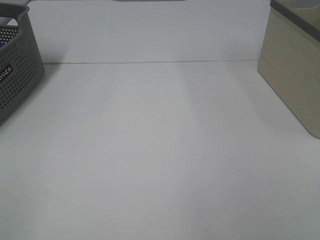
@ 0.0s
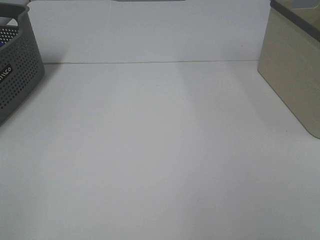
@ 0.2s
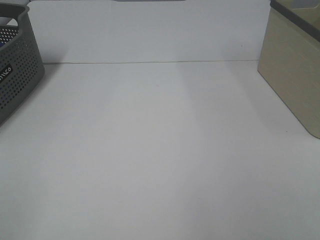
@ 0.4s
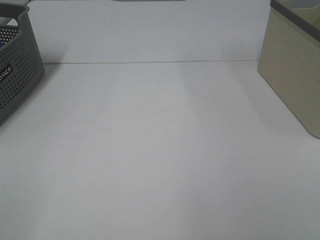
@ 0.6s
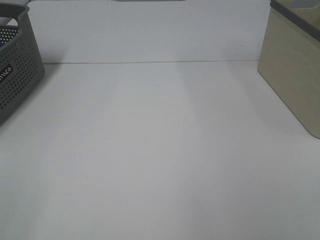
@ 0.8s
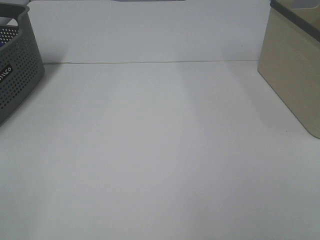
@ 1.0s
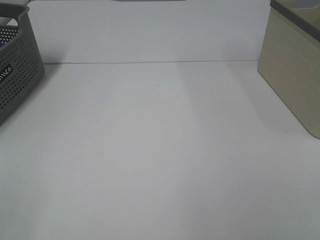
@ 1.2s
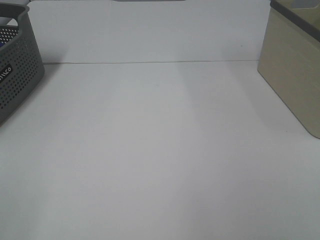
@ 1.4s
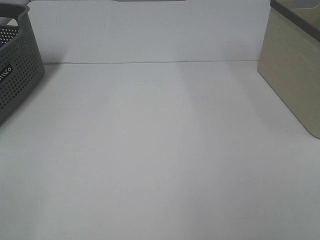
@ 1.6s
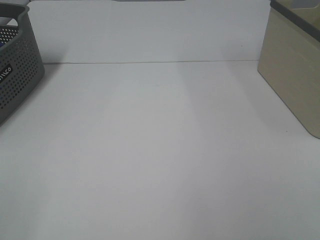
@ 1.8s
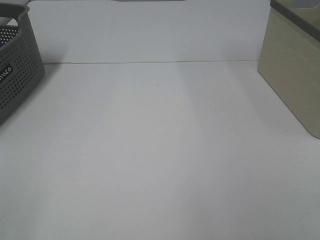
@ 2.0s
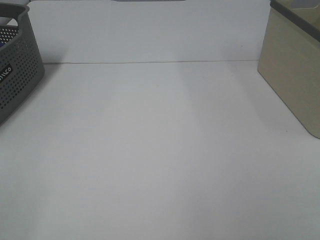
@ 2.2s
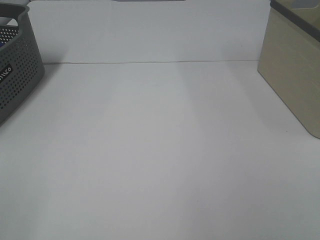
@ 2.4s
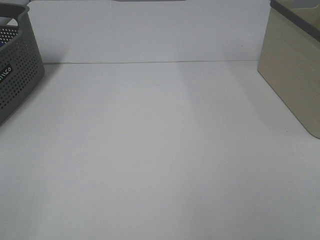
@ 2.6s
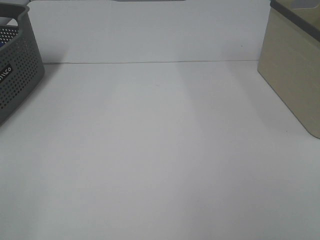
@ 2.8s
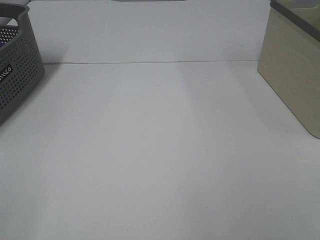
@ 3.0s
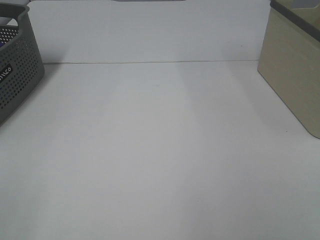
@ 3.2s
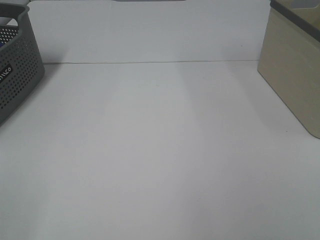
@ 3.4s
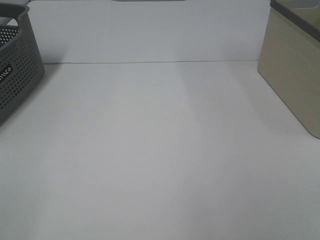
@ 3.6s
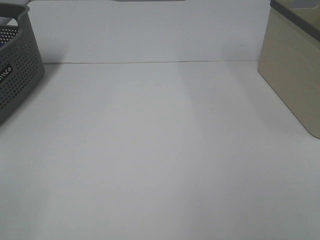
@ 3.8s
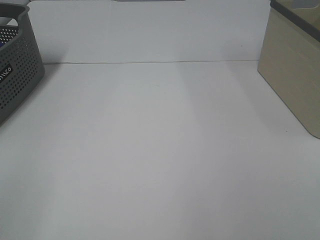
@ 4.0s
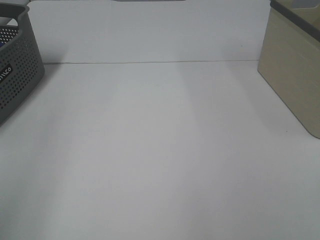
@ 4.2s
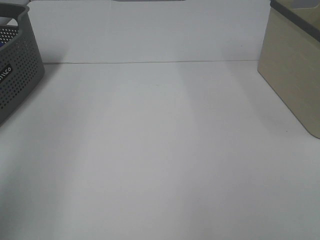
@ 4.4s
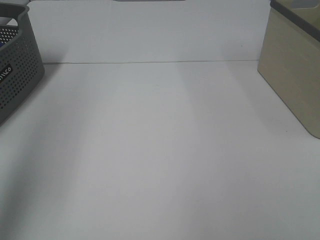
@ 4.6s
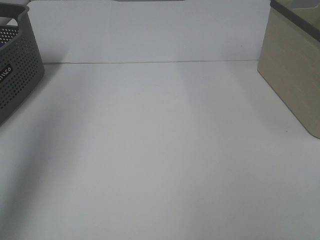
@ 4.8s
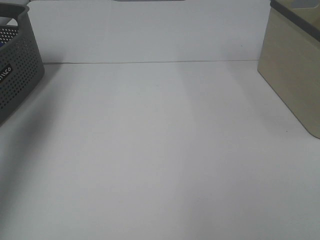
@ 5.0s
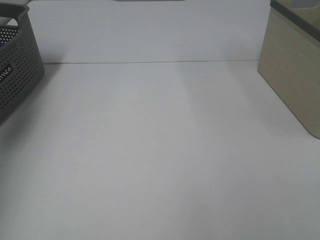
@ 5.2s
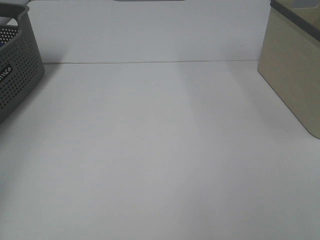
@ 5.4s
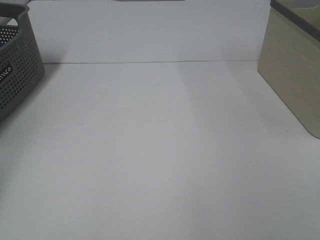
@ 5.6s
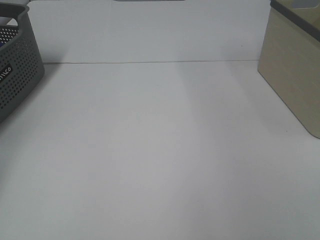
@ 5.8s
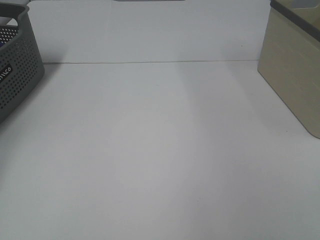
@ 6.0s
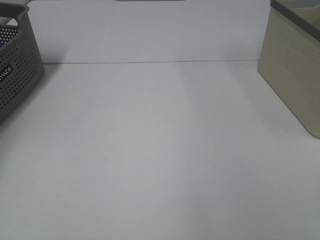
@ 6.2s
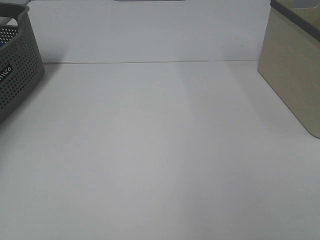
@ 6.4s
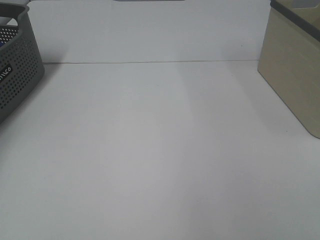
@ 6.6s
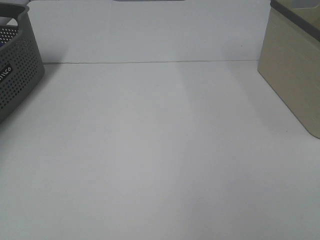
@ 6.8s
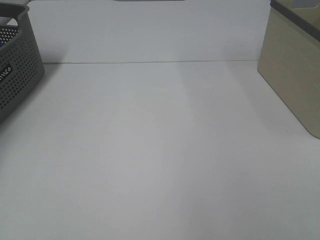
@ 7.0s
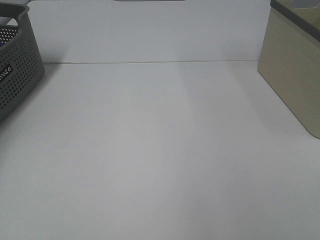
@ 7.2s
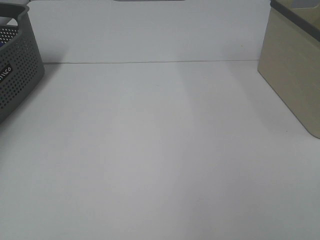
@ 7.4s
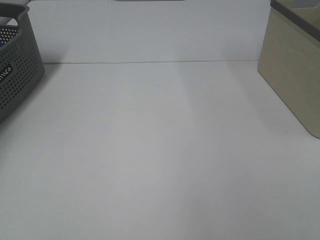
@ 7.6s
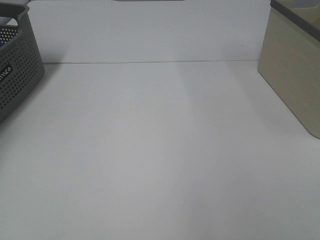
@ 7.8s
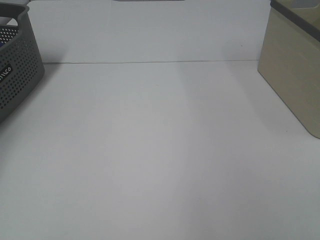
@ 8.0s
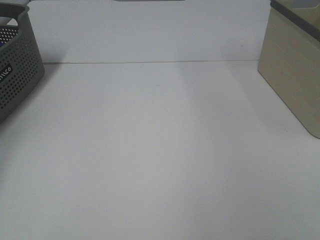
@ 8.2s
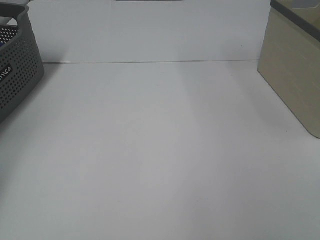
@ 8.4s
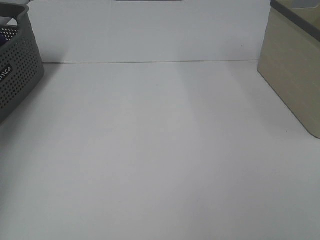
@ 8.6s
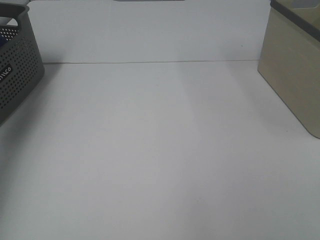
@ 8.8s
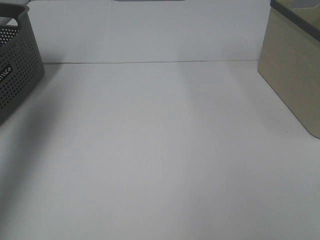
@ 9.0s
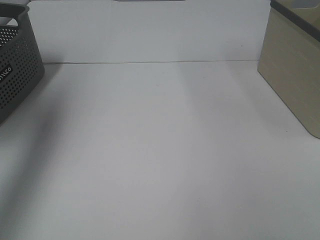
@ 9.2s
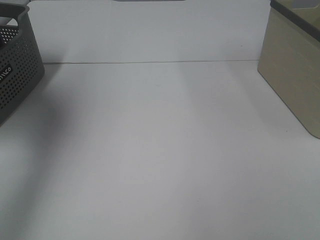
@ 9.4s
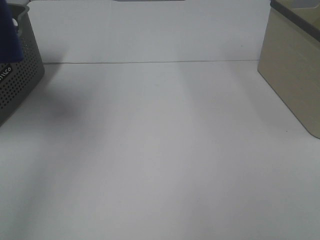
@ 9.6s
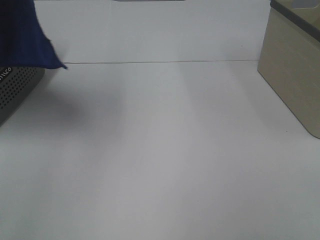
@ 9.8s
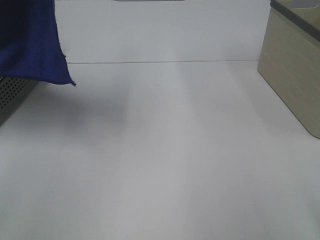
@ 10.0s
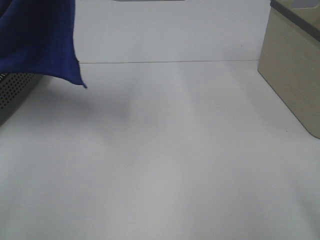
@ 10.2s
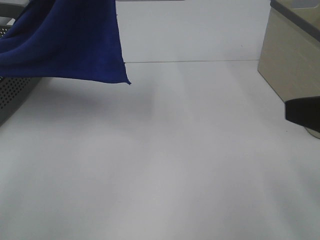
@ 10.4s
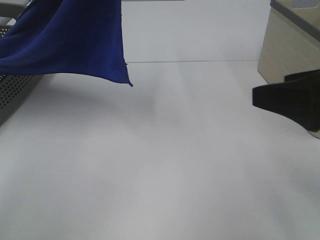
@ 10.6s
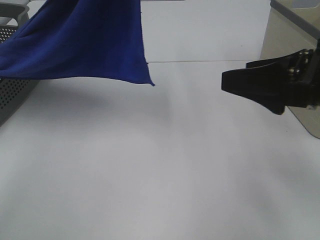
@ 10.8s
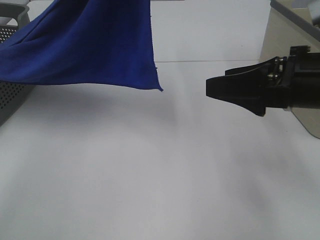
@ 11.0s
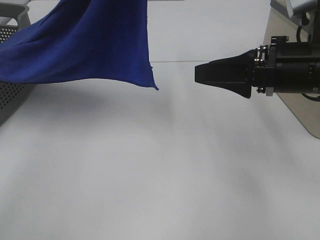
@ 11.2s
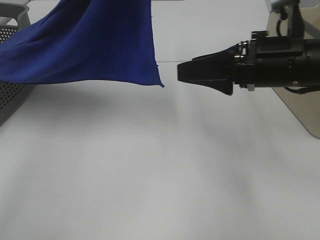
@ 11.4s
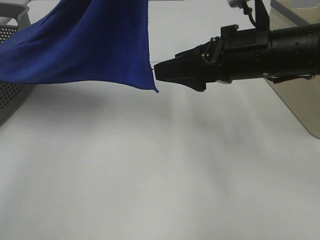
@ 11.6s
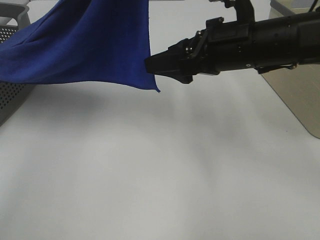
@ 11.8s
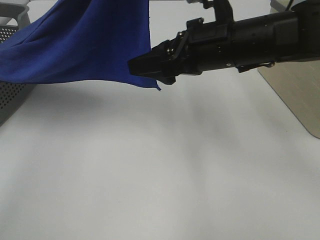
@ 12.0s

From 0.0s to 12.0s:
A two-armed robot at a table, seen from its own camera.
Task of the whole recording: Remove the towel and place it.
From 1.6s to 3.0s: Neither gripper changes place.
From 3.0s to 4.4s: The left gripper travels forward and upward by about 20 cm.
From 4.4s to 6.0s: The left gripper travels forward, to the left and downward by some 40 cm.
From 7.6s to 9.0s: The left gripper moves upward, to the right and backward, some 40 cm.
From 9.0s to 10.4s: The right gripper is displaced forward by about 15 cm. Meanwhile the left gripper heads to the right, covering some 25 cm.
From 10.4s to 12.0s: The right gripper heads forward and to the left, covering roughly 25 cm.

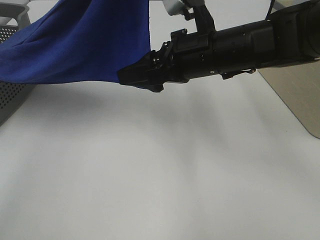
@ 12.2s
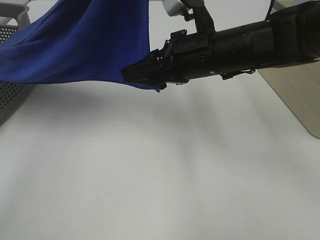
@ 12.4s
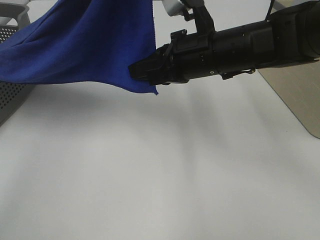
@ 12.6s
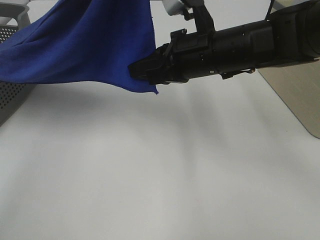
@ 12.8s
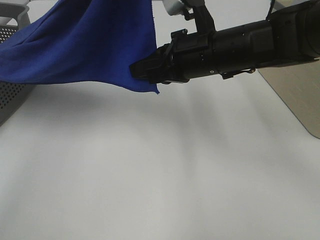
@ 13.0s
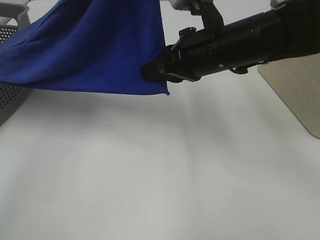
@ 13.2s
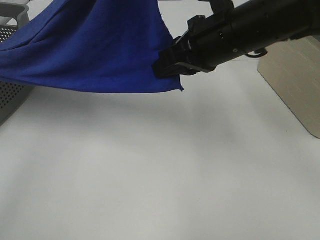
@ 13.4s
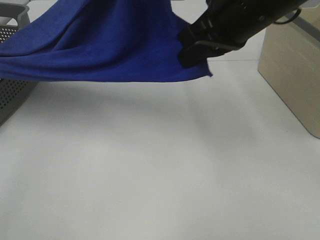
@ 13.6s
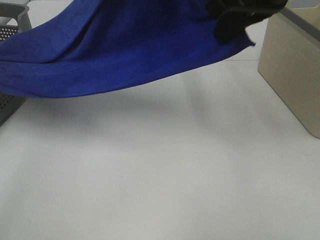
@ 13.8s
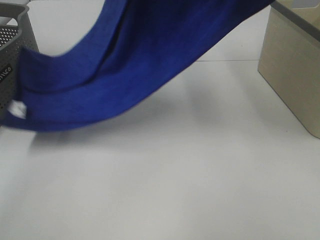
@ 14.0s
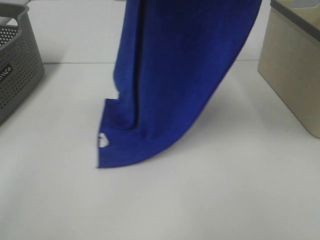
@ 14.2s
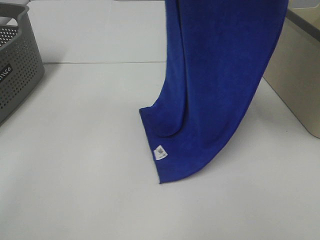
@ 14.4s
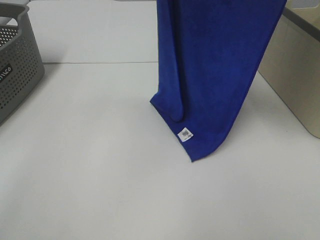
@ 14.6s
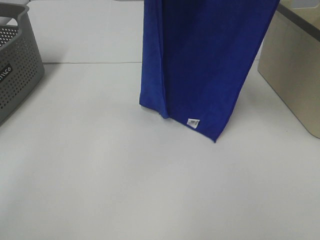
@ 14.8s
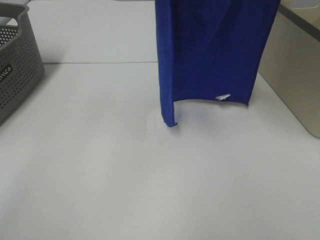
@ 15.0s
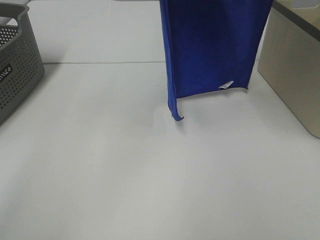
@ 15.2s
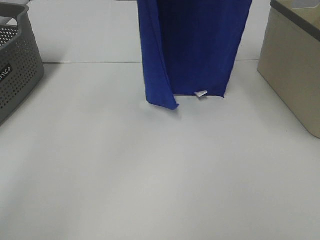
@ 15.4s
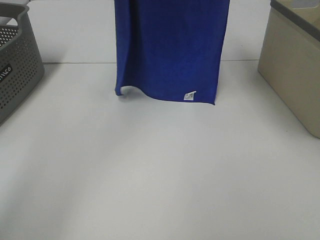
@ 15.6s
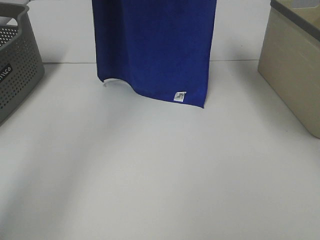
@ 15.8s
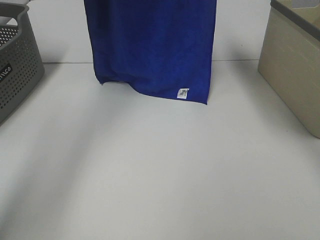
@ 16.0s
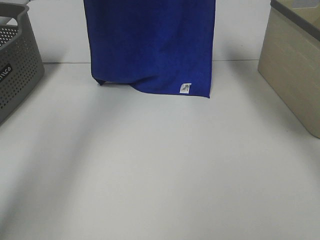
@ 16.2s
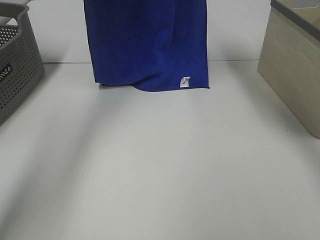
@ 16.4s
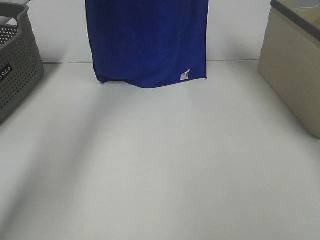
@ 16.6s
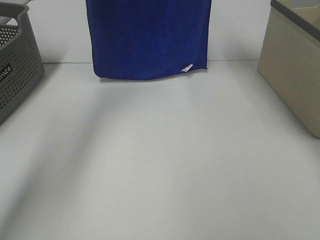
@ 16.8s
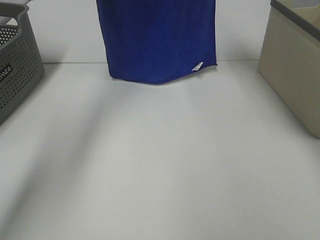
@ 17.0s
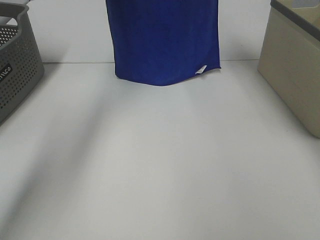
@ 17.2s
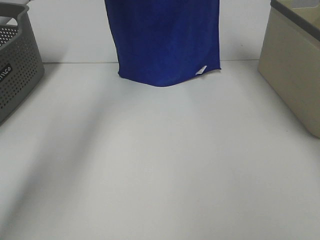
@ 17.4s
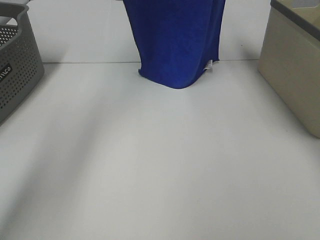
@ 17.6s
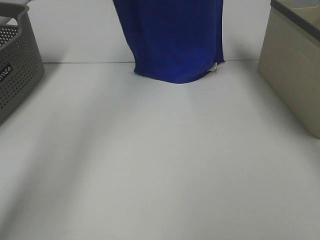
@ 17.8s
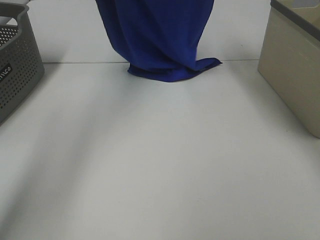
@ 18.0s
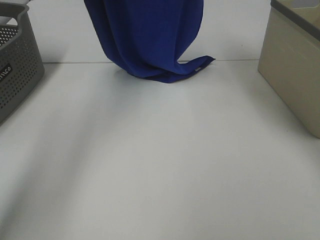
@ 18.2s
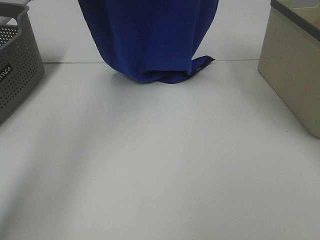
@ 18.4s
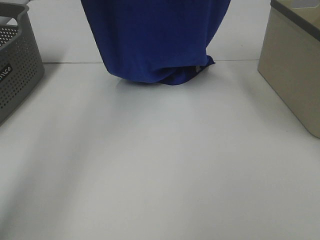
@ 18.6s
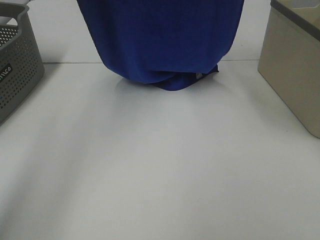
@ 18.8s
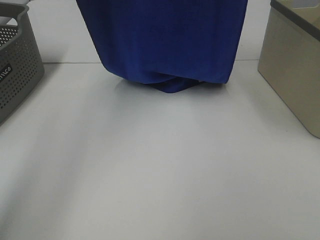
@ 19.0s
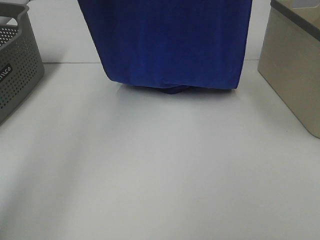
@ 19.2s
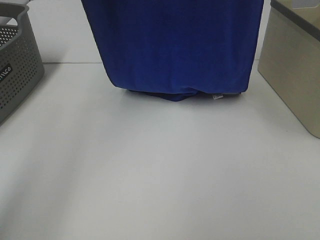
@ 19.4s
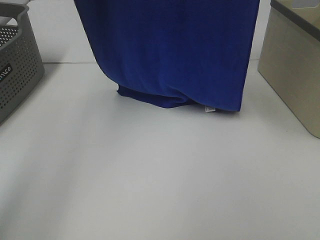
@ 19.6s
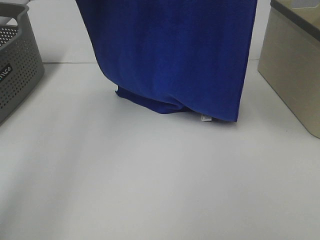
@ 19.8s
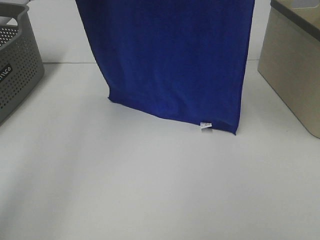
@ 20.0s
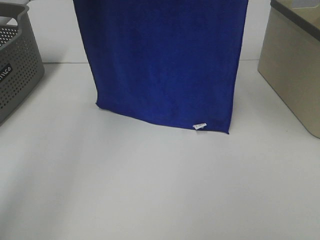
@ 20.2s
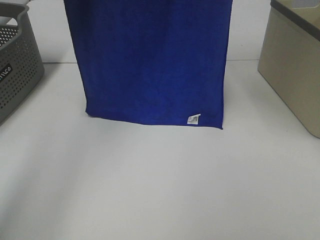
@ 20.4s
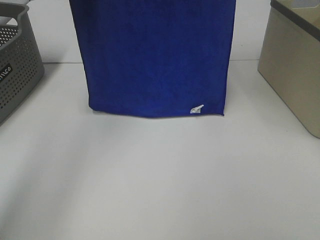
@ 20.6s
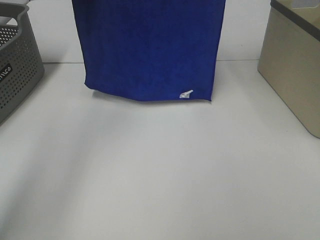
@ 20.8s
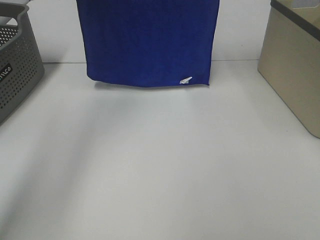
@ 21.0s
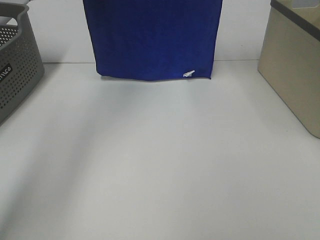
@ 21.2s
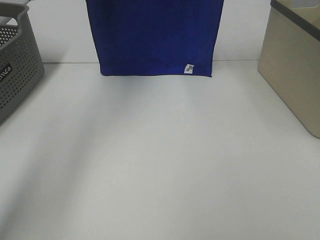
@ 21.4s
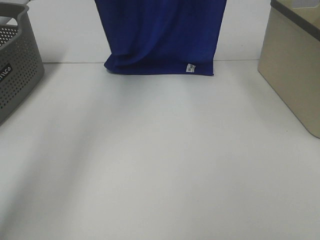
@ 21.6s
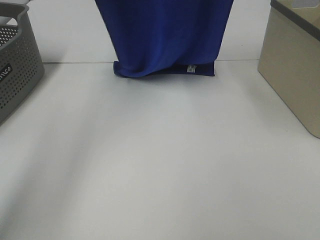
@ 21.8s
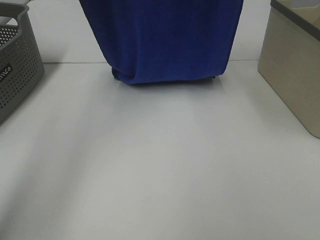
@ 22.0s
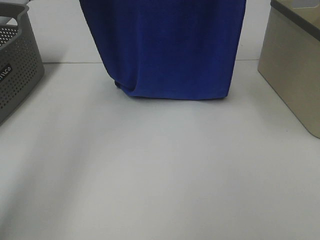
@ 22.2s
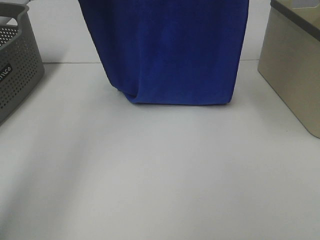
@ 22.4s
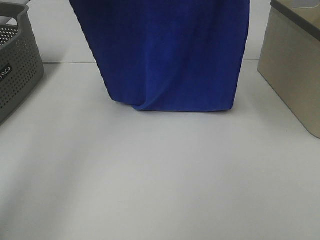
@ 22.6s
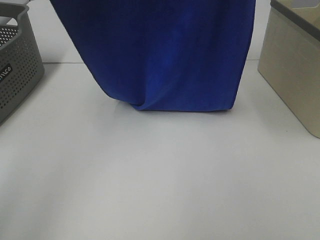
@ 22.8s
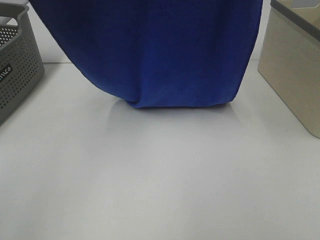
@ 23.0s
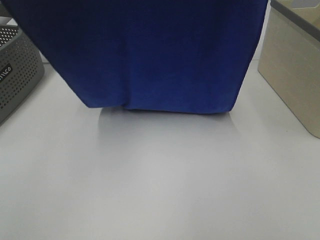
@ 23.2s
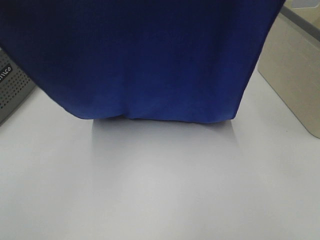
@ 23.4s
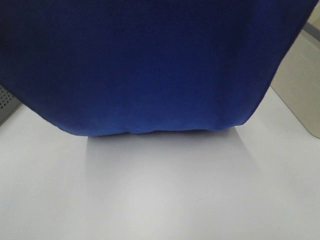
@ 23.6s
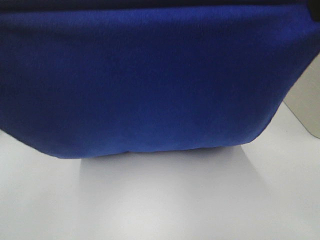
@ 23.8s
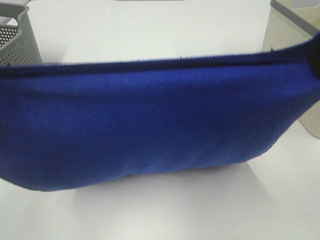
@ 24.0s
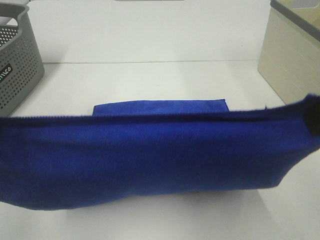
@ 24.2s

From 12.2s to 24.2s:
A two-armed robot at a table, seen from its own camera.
Task of the whole recording: Remove the towel and place it.
Step, from 12.6s to 21.8s: Left hand: spread the blue towel flat on the table.
Step, from 12.6s to 21.8s: Right hand: spread the blue towel flat on the table.
From 12.2s to 13.8s: The right gripper is displaced upward by about 15 cm, and closes its fingers.
From 13.8s to 15.2s: The left gripper moves approximately 5 cm. Meanwhile the right gripper is displaced upward by approximately 15 cm.
From 15.2s to 16.6s: Both grippers move forward and downward, some 15 cm.
From 16.6s to 18.2s: The two grippers go roughly 5 cm backward.
From 18.2s to 19.8s: The two grippers go approximately 15 cm backward and upward.
From 19.8s to 21.2s: The two grippers go about 10 cm forward.
From 21.2s to 22.6s: The right gripper goes approximately 10 cm backward, while the left gripper is displaced backward and downward by roughly 10 cm.
From 22.6s to 24.2s: The two grippers go some 25 cm backward and downward.
